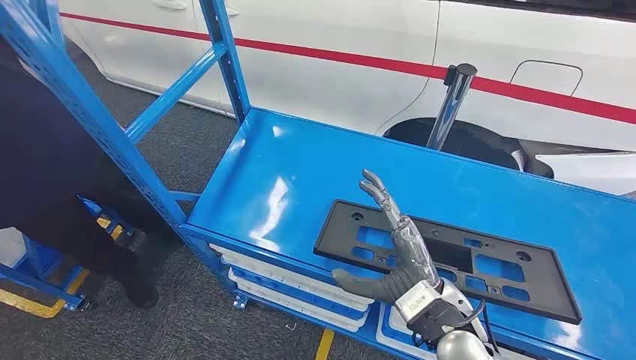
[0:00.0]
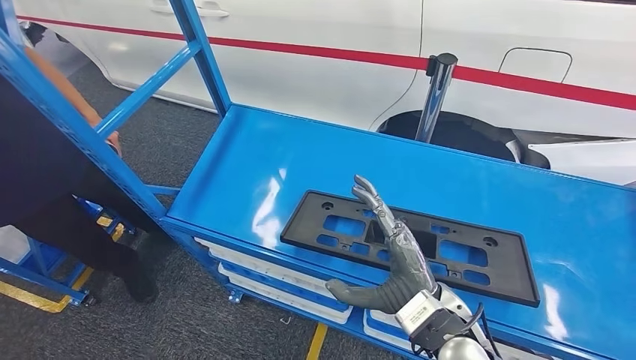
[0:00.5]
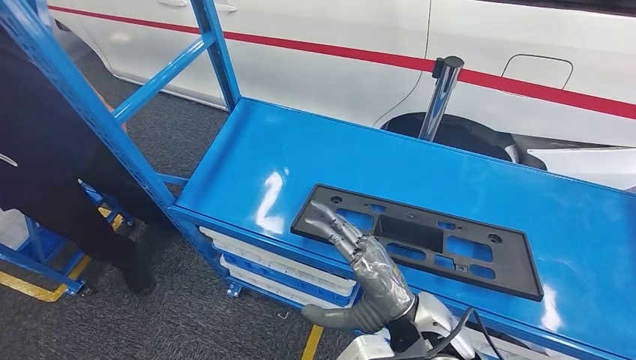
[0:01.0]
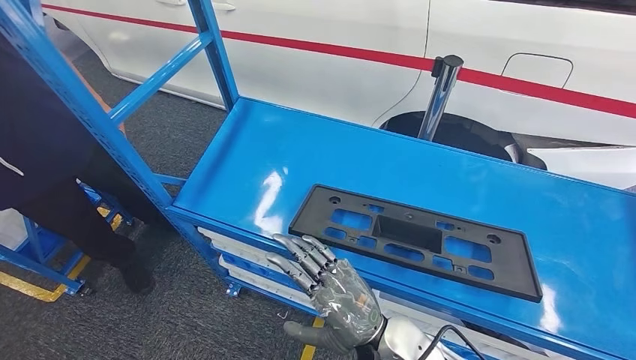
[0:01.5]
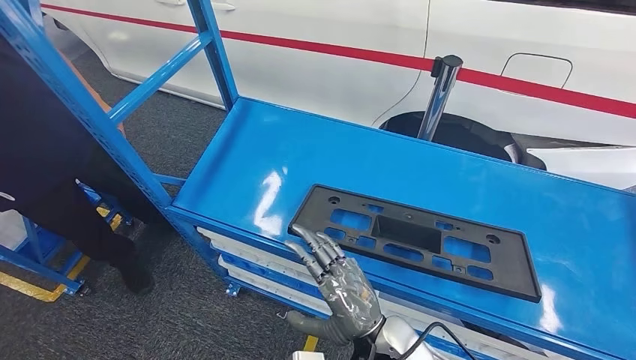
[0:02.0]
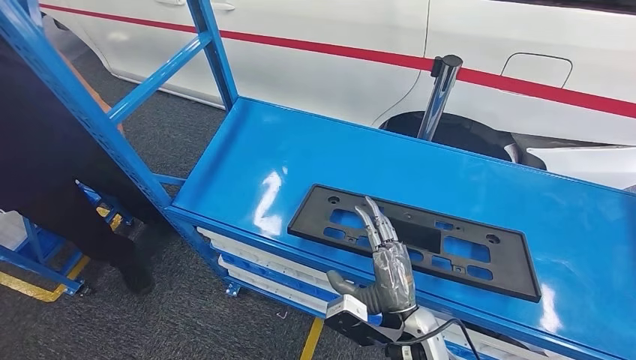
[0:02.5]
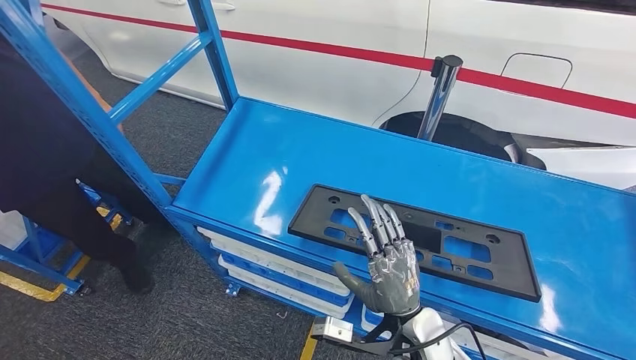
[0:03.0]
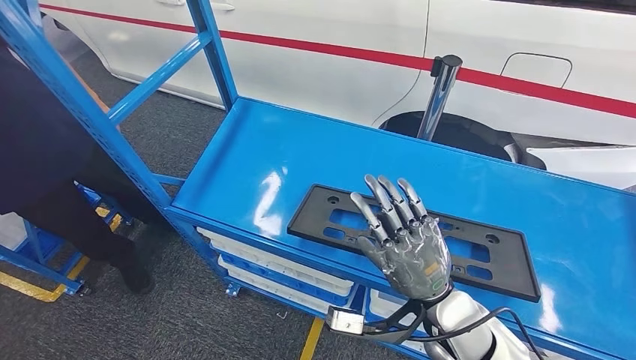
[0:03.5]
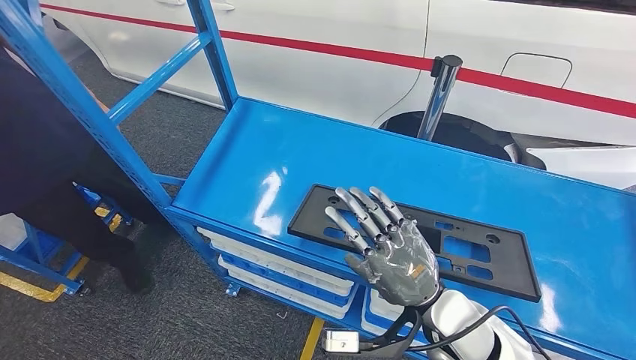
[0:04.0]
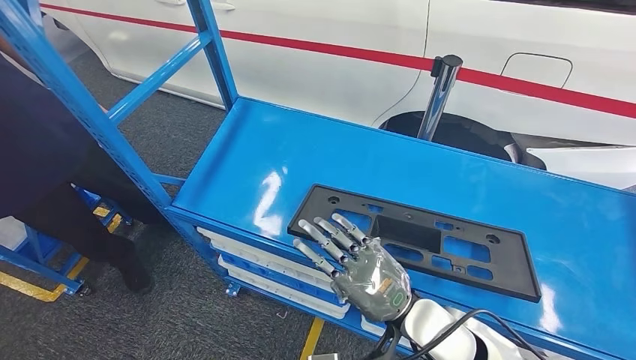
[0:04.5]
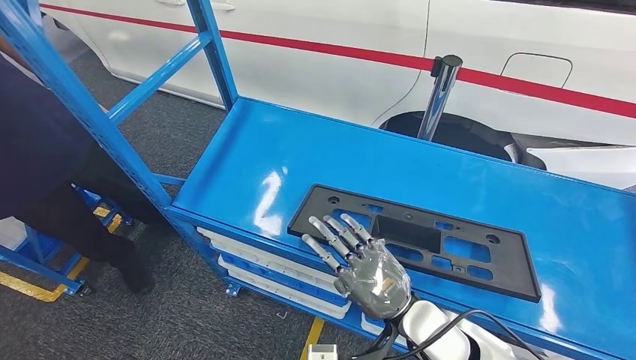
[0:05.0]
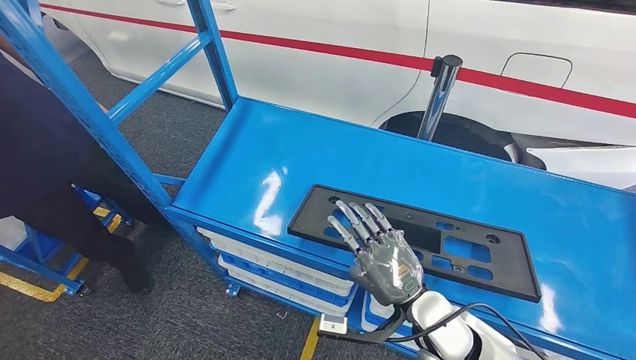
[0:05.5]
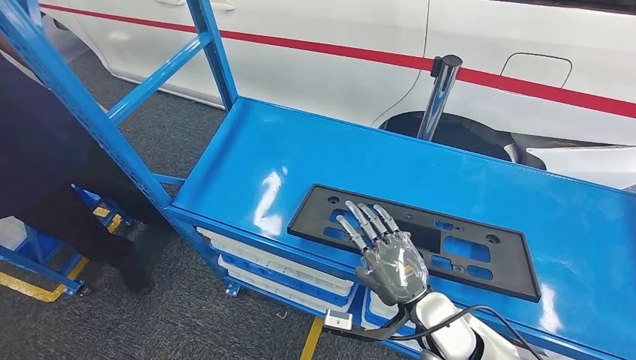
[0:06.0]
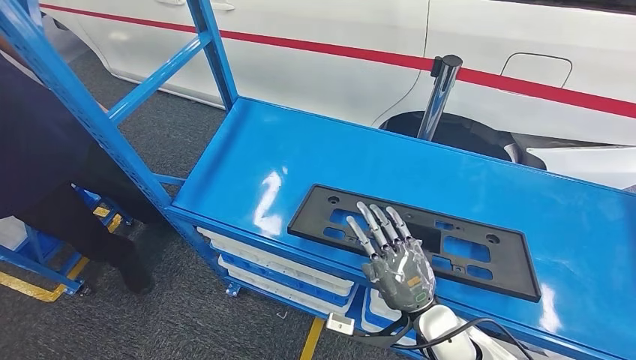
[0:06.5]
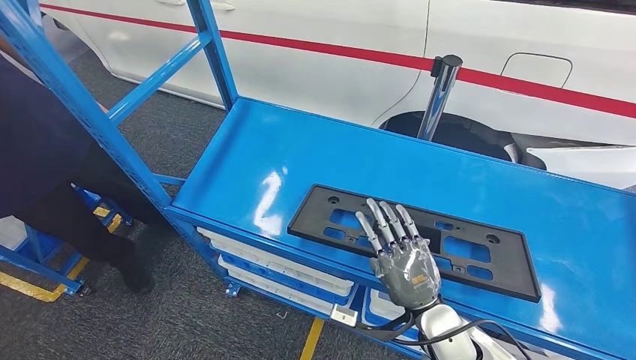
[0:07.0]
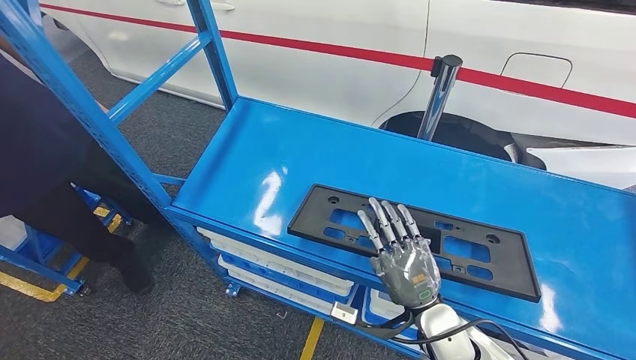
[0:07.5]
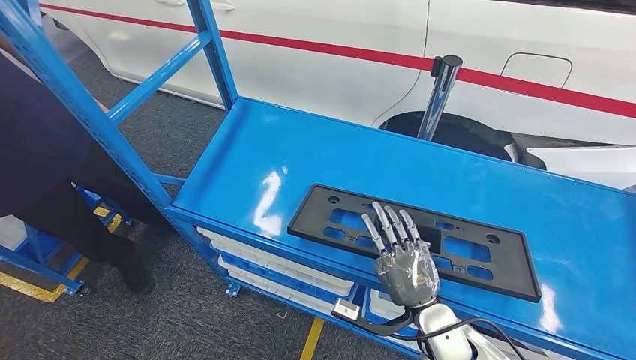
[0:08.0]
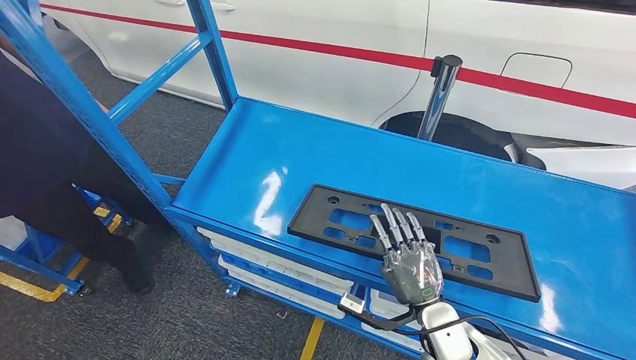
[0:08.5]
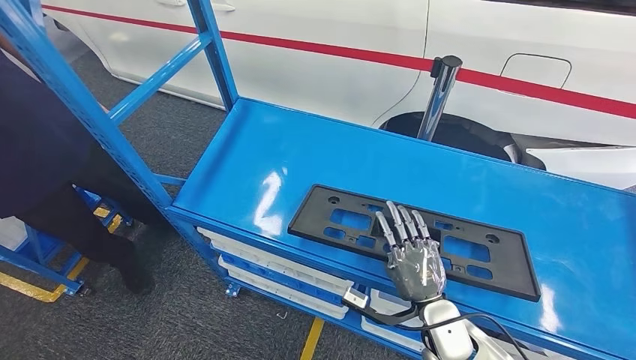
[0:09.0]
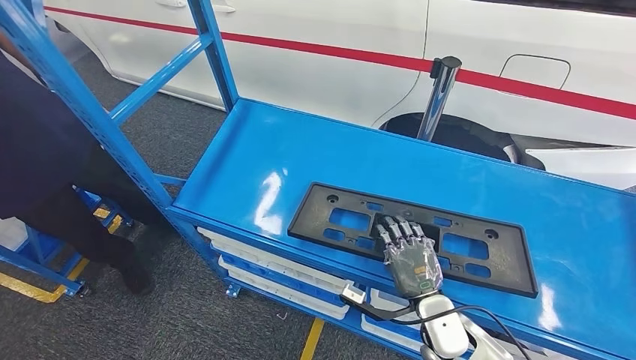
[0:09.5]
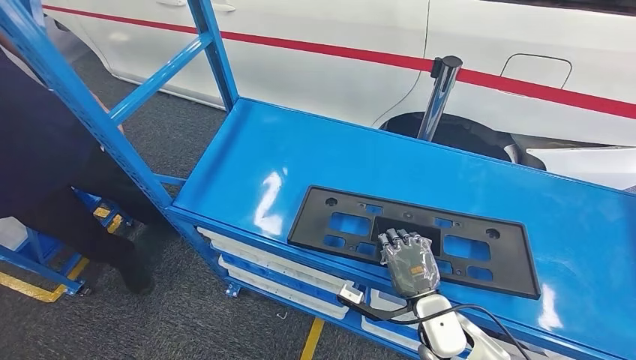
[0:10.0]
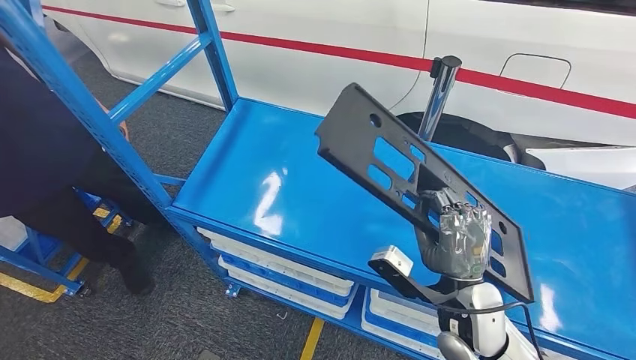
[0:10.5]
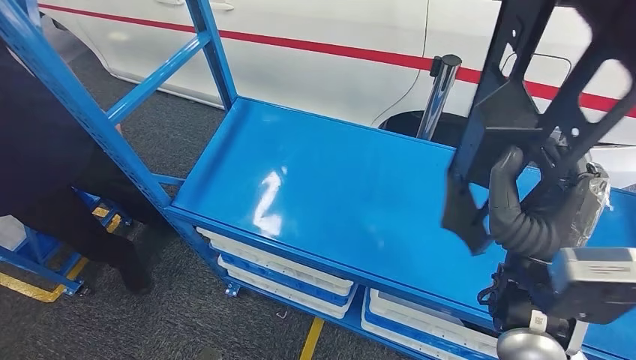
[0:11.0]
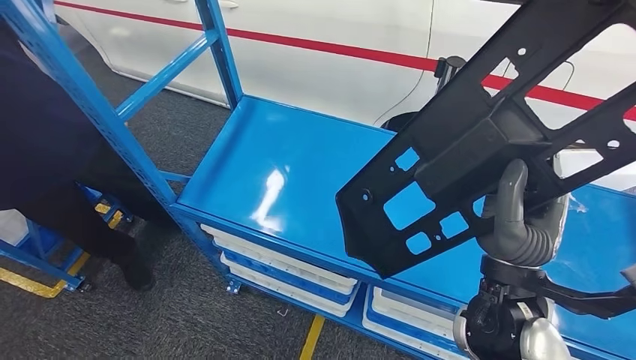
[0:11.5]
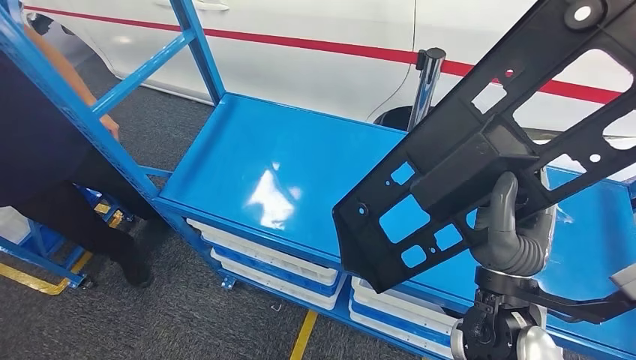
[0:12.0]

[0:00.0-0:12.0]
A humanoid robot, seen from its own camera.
0:02.0 to 0:04.0: The right hand shifts some 10 cm to the right.
0:04.0 to 0:06.0: The right hand shifts roughly 5 cm downward.
0:06.0 to 0:08.0: The hands make only small movements.
0:08.0 to 0:10.0: The hands stay close to where they were, moving slightly.

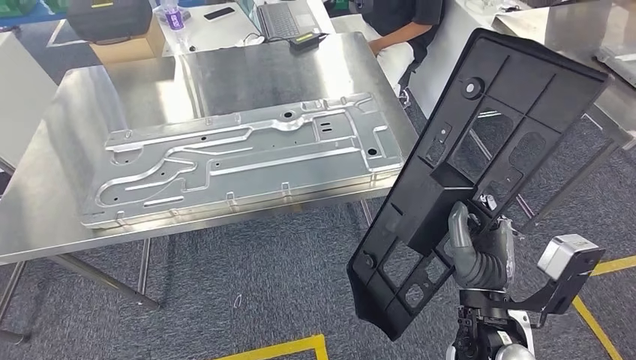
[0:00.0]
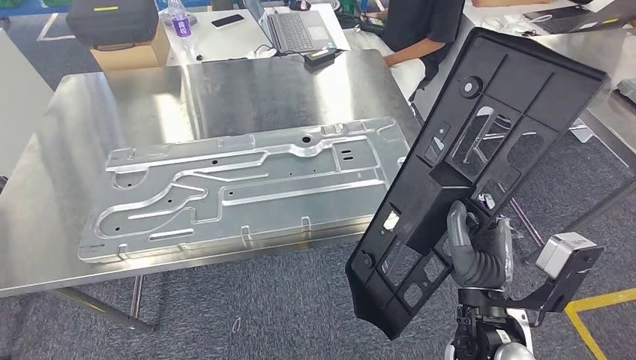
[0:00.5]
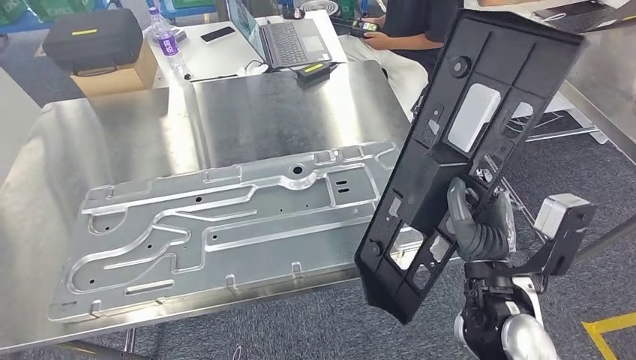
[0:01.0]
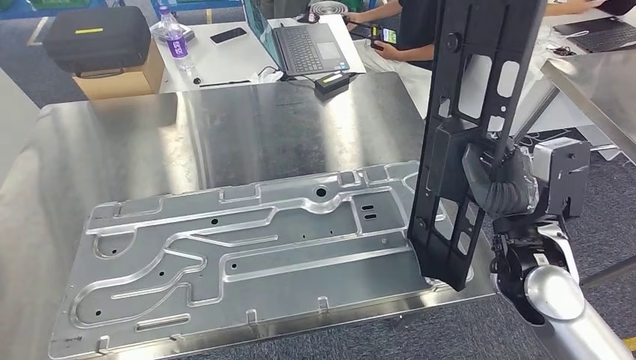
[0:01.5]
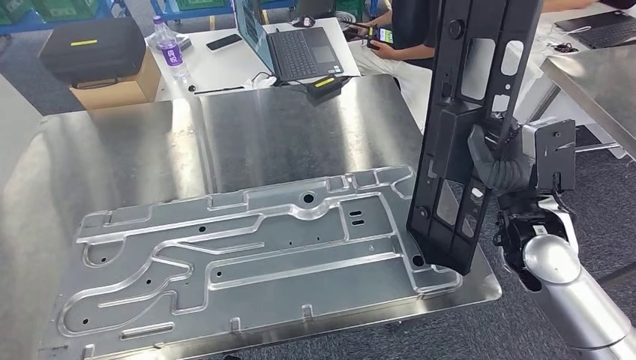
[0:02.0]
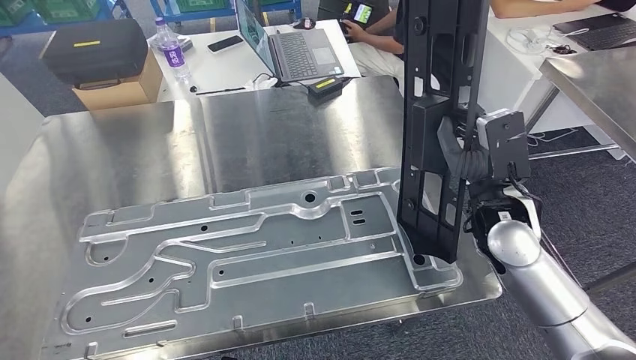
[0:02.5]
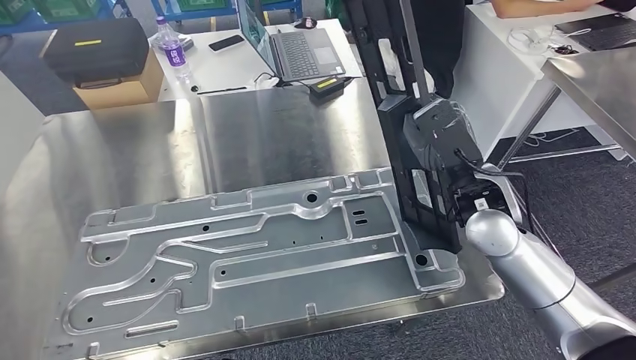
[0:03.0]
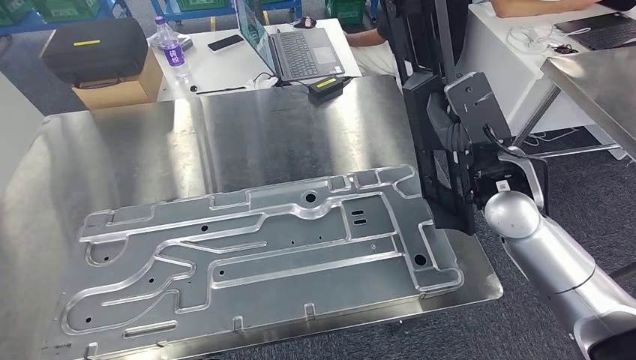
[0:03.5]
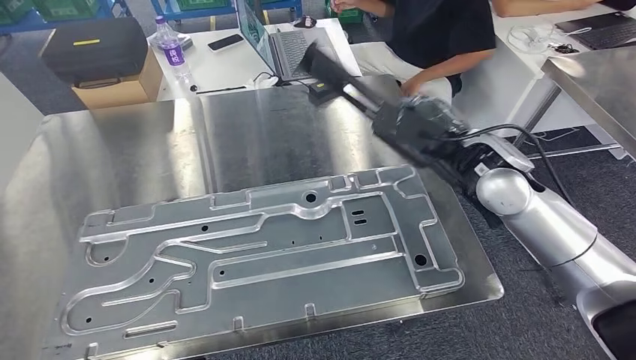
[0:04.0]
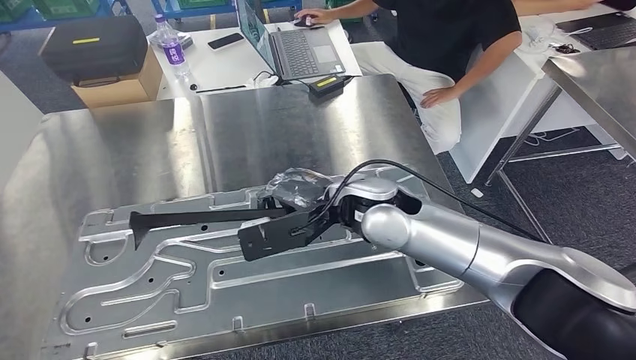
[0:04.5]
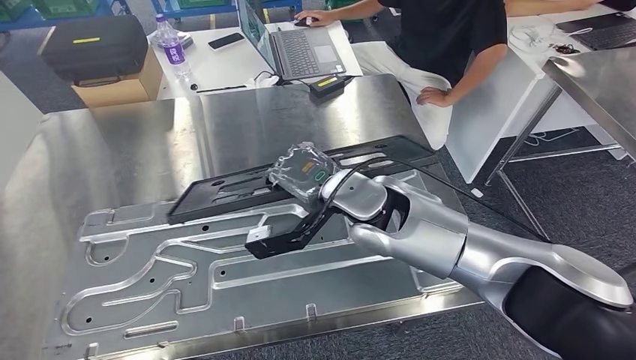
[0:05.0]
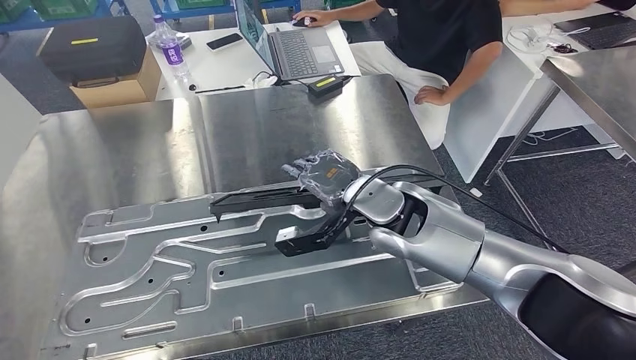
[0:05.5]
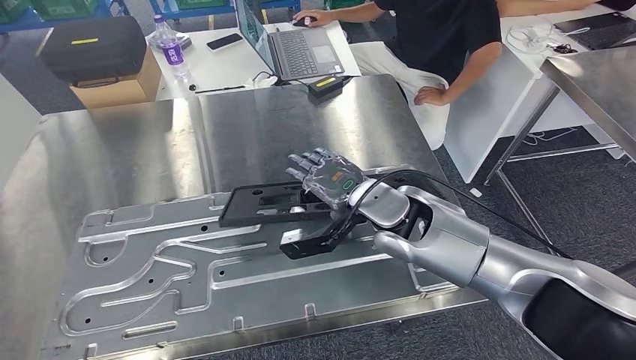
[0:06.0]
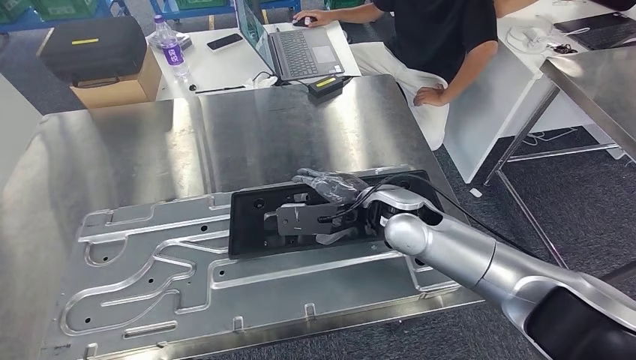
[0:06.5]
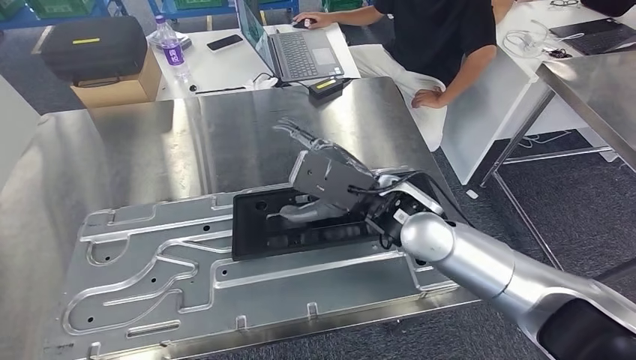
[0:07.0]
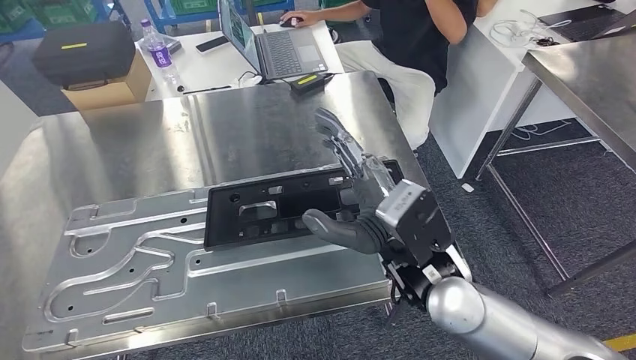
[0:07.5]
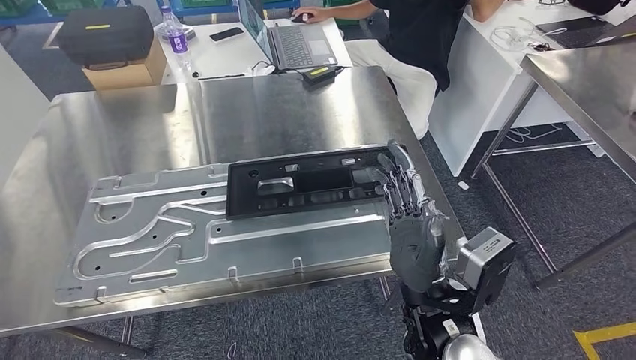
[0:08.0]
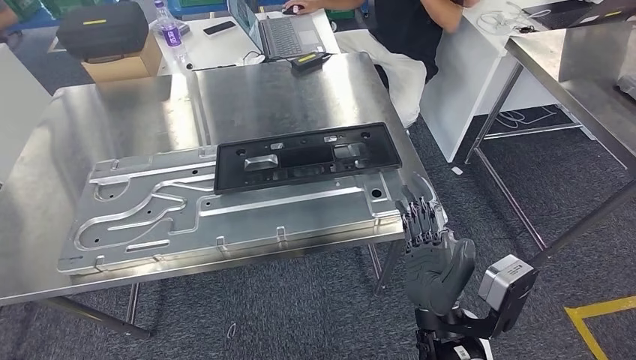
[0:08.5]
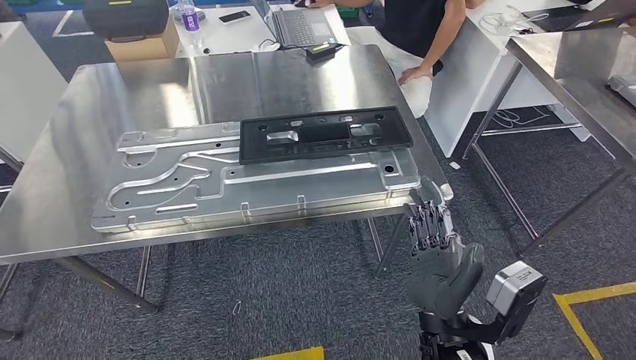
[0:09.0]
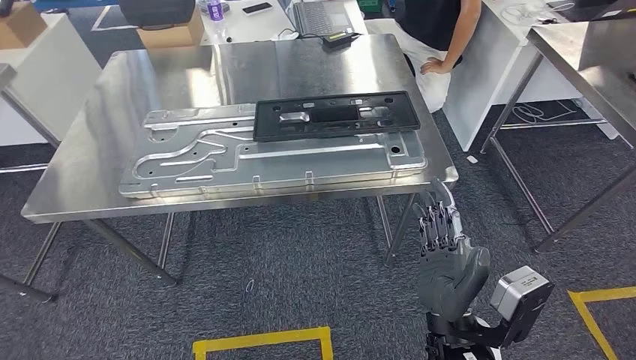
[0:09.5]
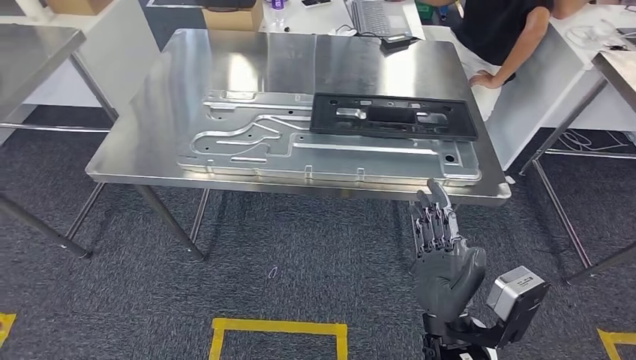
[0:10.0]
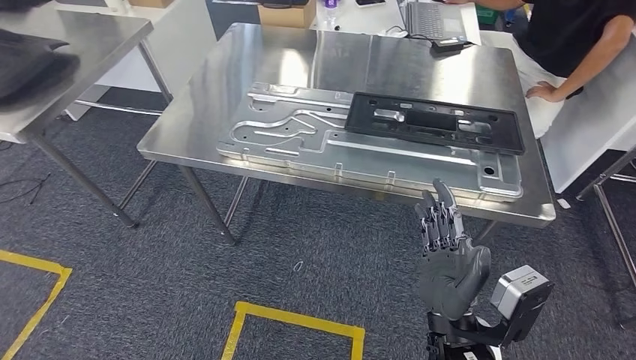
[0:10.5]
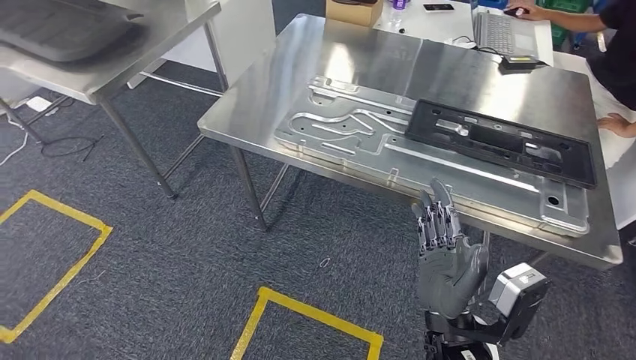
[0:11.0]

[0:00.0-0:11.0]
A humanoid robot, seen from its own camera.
Step, 0:02.0 to 0:09.0: Insert the large material into the corresponding slot on the workbench.
